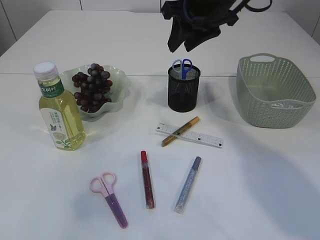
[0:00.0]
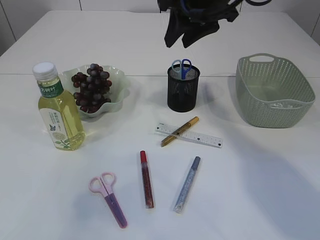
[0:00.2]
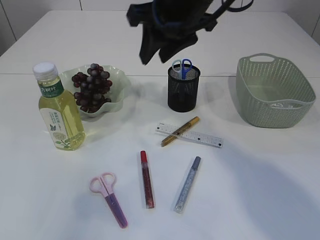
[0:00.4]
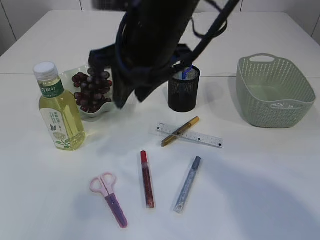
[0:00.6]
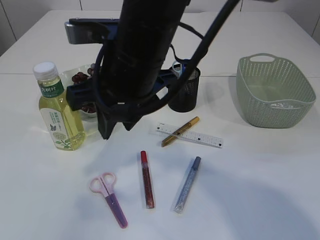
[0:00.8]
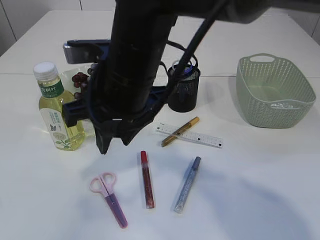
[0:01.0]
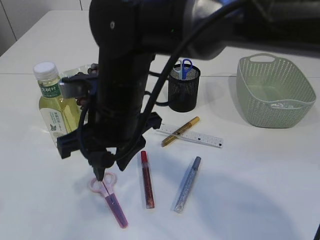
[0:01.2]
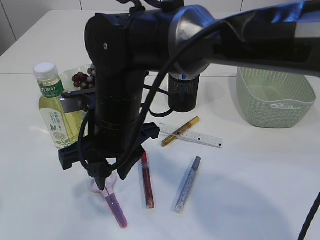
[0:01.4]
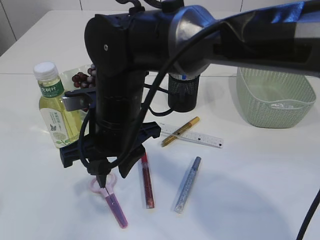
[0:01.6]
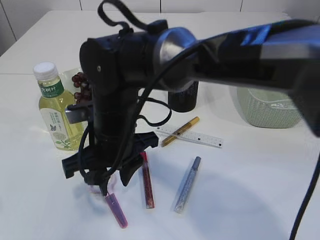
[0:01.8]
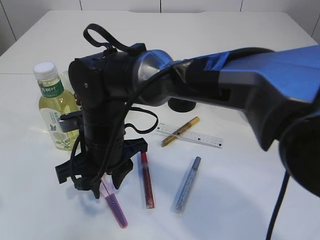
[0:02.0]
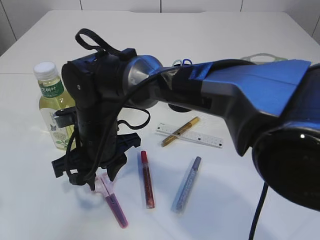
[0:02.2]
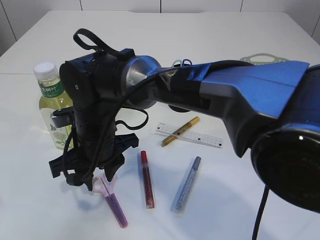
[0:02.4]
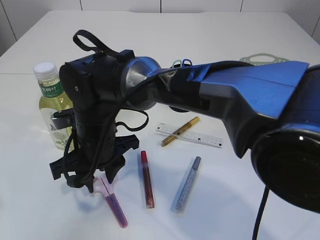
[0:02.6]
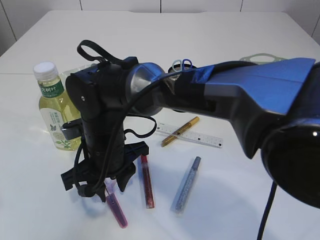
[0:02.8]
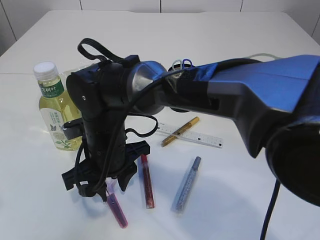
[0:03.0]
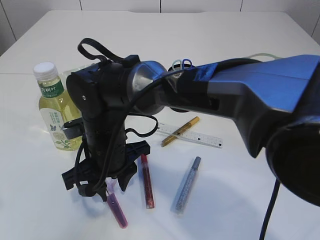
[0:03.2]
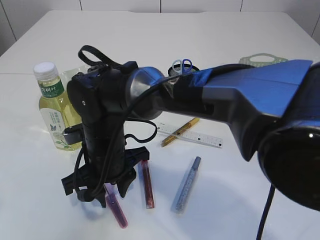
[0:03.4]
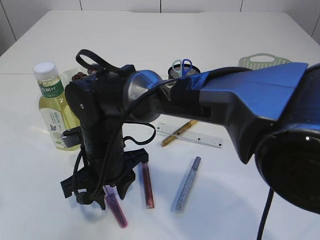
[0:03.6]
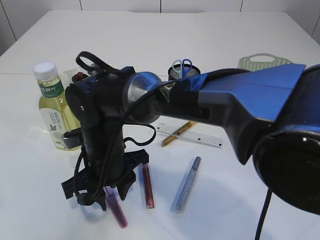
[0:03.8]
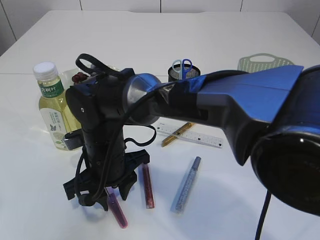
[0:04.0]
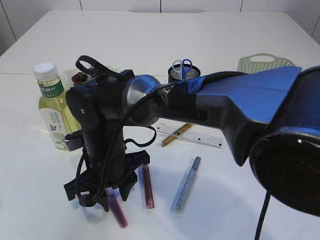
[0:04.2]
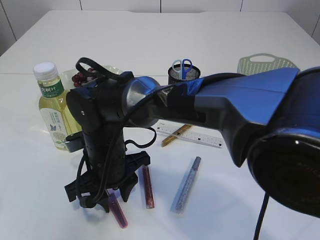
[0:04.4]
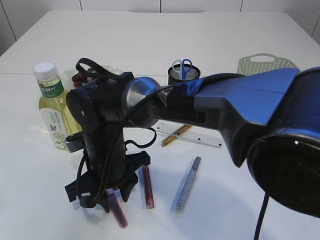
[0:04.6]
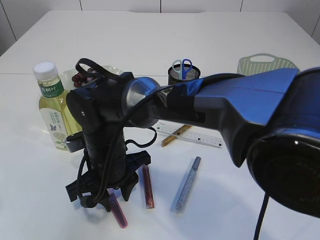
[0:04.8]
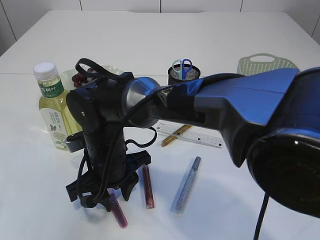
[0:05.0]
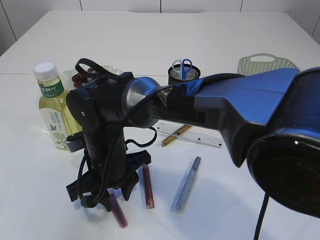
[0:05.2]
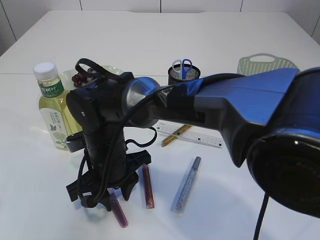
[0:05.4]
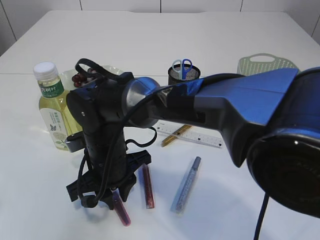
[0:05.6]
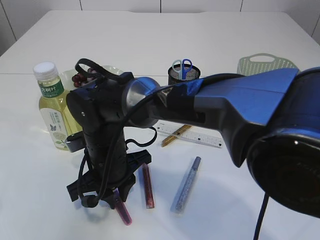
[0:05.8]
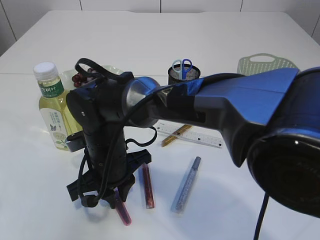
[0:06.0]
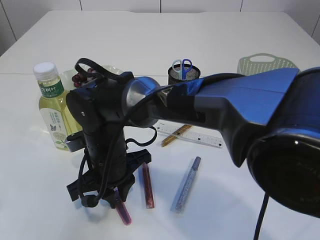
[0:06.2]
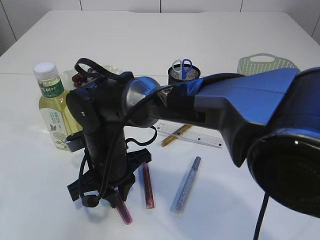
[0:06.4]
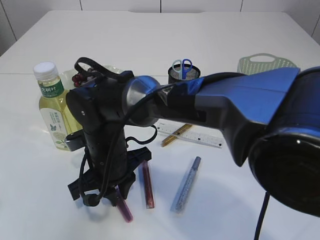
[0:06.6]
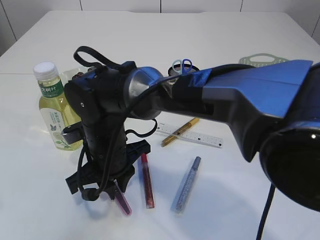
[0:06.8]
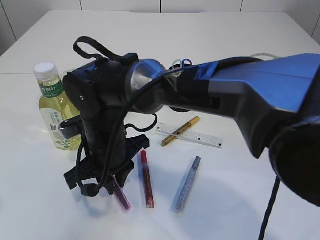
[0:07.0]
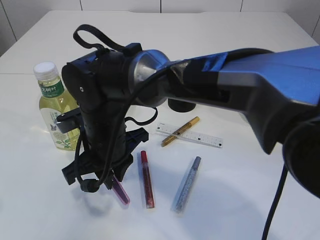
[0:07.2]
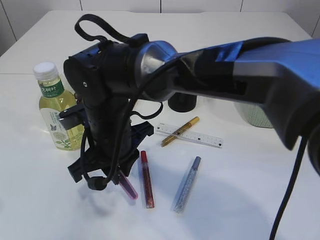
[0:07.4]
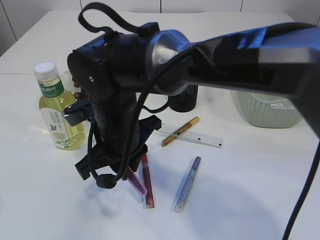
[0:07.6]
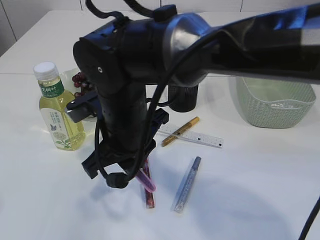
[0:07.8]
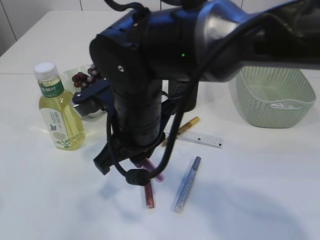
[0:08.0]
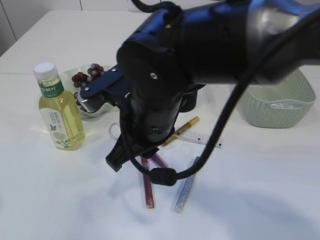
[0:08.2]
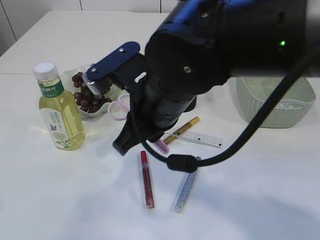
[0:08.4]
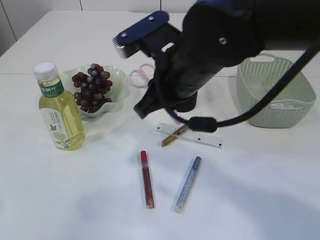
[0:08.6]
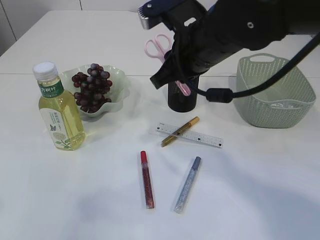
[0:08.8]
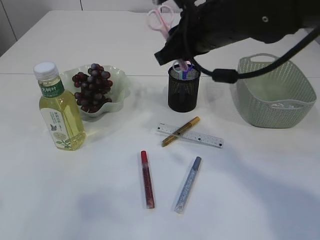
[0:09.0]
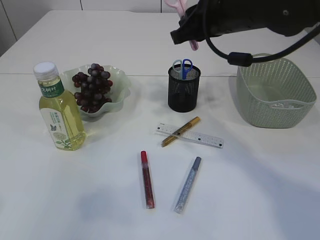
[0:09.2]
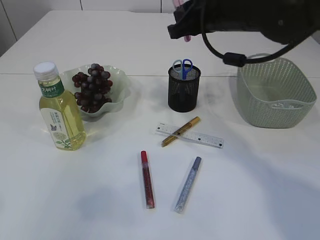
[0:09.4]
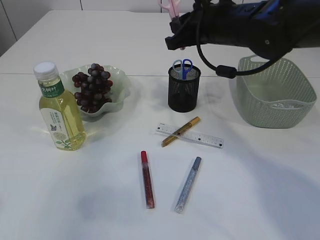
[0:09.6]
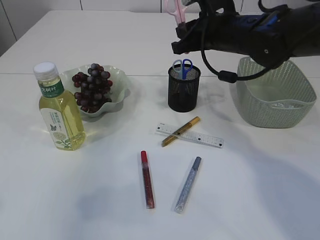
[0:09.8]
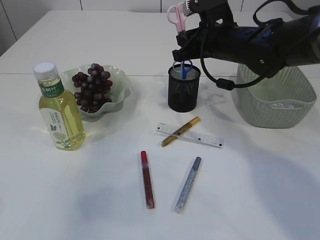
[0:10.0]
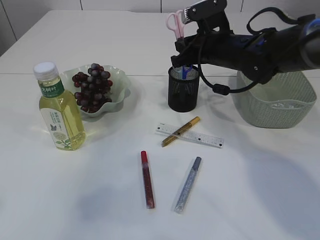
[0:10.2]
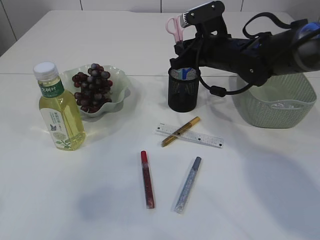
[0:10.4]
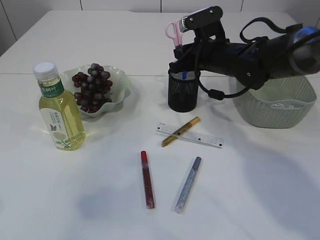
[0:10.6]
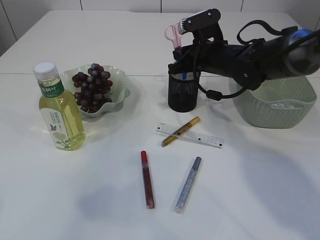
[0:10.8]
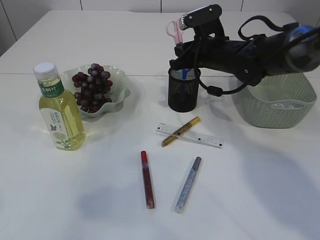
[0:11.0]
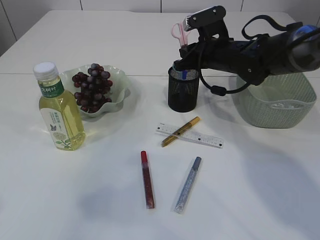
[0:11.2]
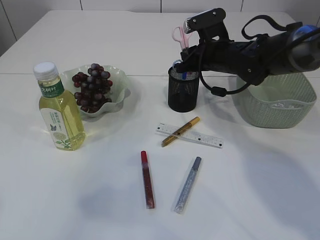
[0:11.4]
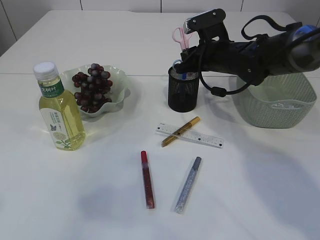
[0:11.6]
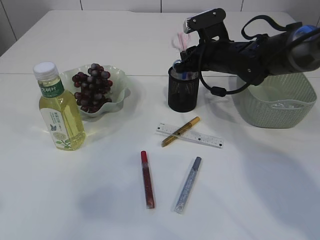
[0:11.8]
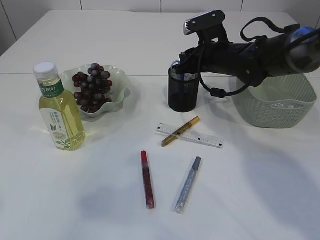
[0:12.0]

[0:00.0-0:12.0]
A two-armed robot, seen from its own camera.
Step, 0:00.0 to 0:07.2: pick up the pink scissors.
0:00.0 to 0:01.6: The right gripper shifts some 25 cm to the left, backward and downward.
0:01.6 to 0:03.0: The right gripper goes approximately 5 cm downward.
0:04.4 to 0:06.0: The two grippers keep their place.
0:06.0 to 0:07.6: The right gripper goes about 5 cm upward.
0:07.6 to 0:09.0: The right gripper moves to the right, upward and forward, roughly 20 cm.
0:09.0 to 0:10.4: The right gripper travels forward and downward by approximately 15 cm.
0:10.4 to 0:12.0: The grippers stay close to where they were, moving slightly.

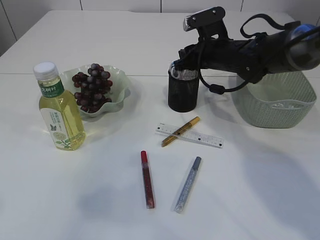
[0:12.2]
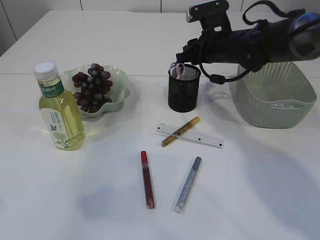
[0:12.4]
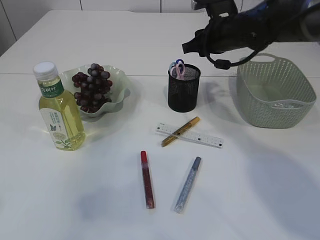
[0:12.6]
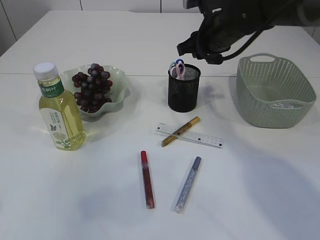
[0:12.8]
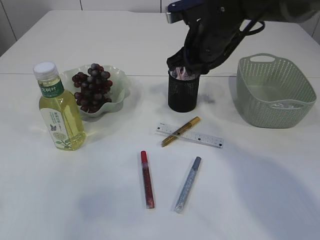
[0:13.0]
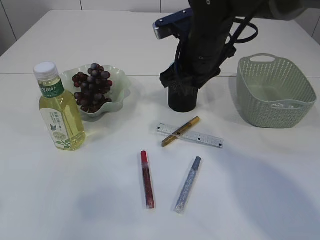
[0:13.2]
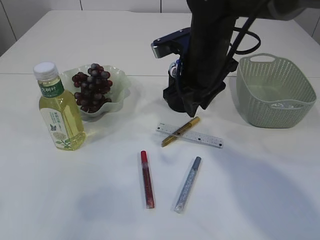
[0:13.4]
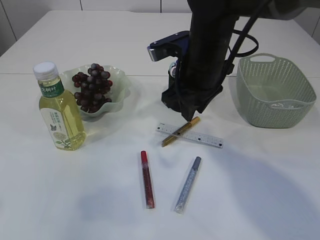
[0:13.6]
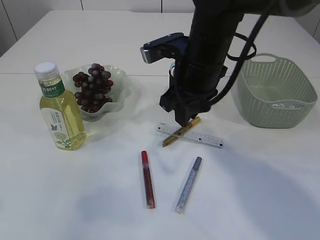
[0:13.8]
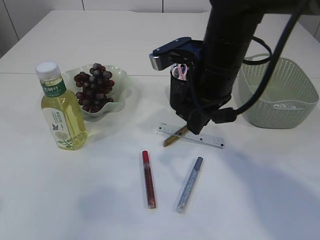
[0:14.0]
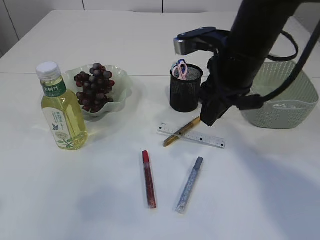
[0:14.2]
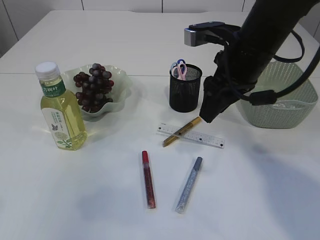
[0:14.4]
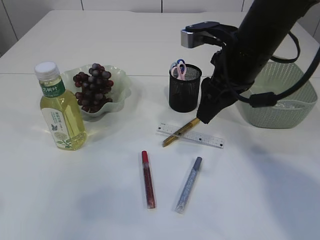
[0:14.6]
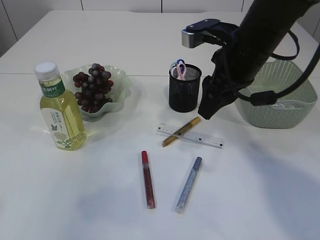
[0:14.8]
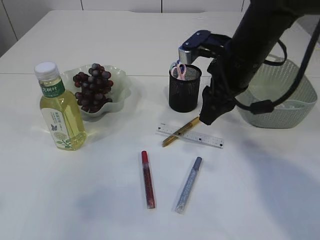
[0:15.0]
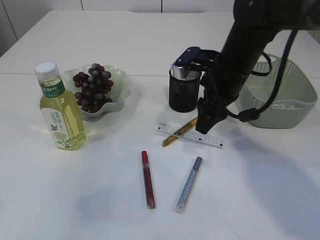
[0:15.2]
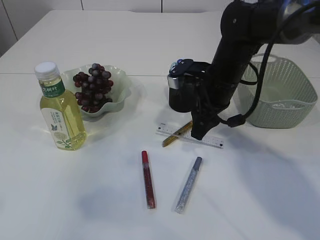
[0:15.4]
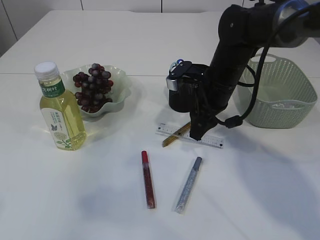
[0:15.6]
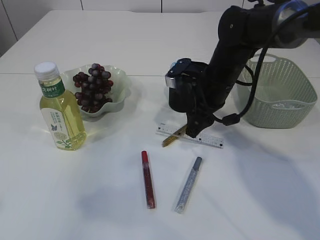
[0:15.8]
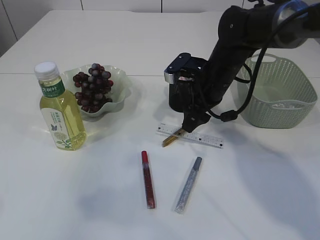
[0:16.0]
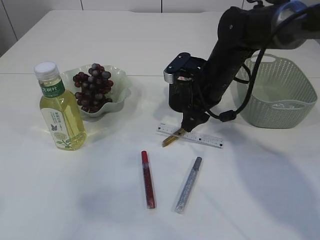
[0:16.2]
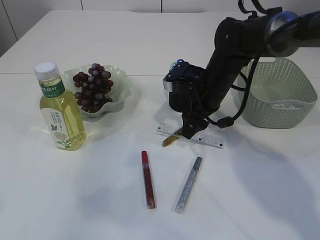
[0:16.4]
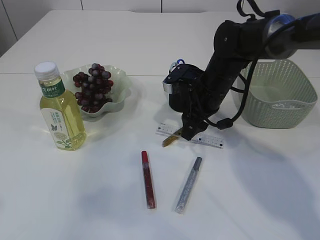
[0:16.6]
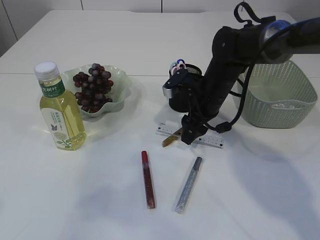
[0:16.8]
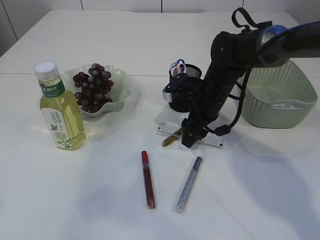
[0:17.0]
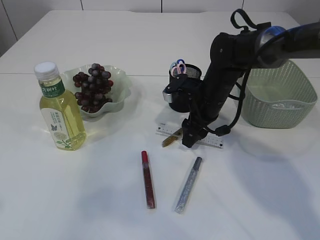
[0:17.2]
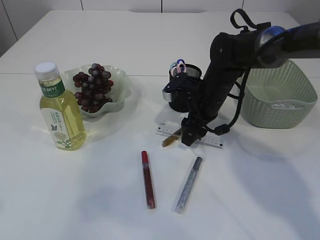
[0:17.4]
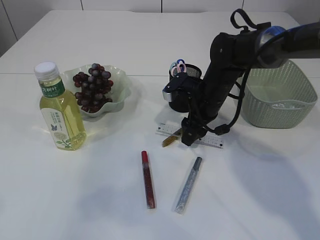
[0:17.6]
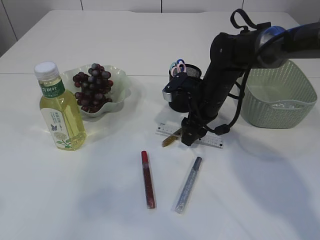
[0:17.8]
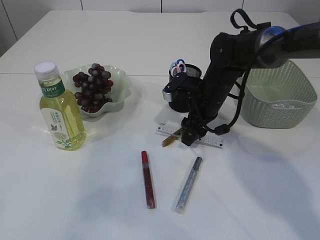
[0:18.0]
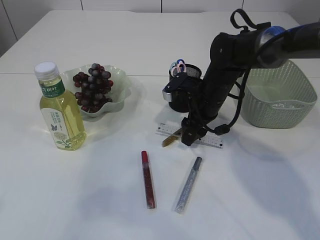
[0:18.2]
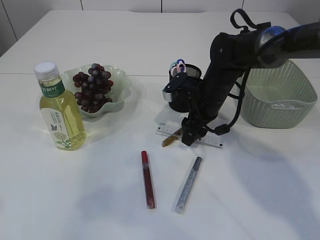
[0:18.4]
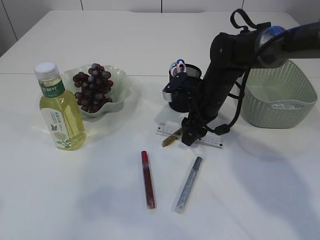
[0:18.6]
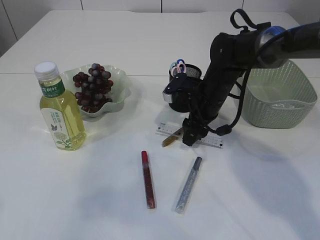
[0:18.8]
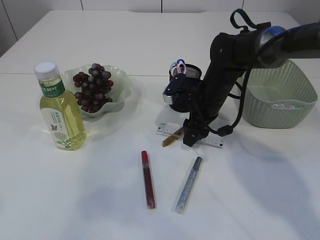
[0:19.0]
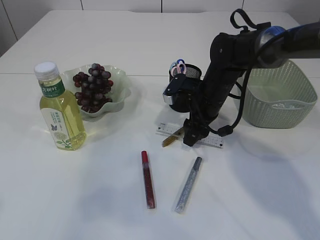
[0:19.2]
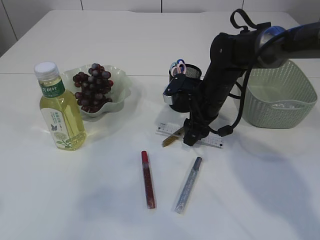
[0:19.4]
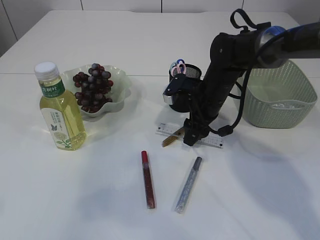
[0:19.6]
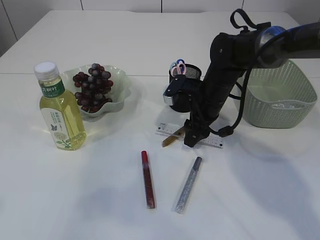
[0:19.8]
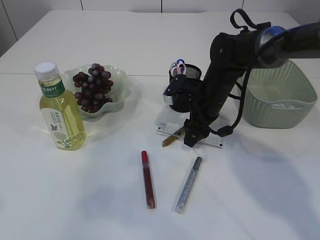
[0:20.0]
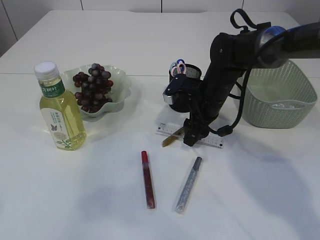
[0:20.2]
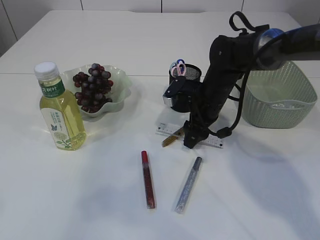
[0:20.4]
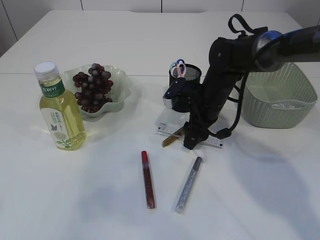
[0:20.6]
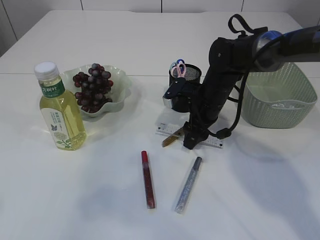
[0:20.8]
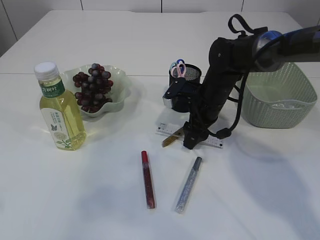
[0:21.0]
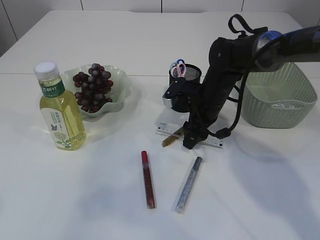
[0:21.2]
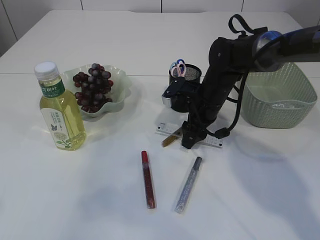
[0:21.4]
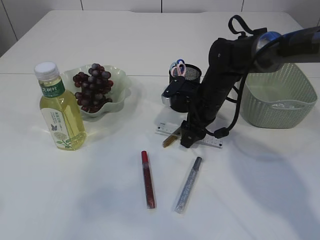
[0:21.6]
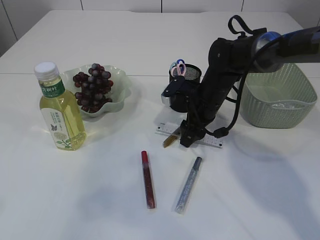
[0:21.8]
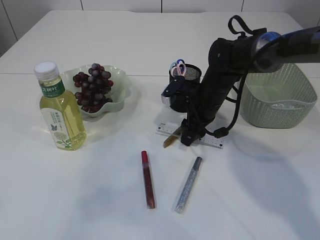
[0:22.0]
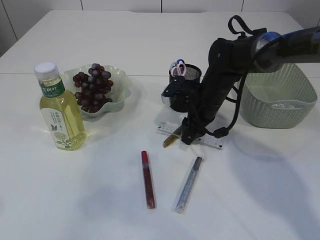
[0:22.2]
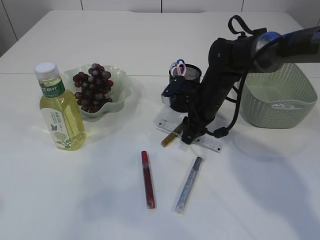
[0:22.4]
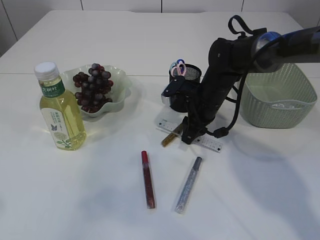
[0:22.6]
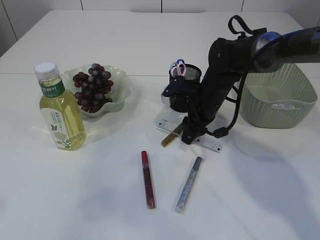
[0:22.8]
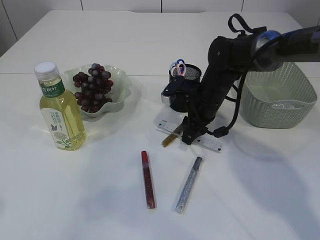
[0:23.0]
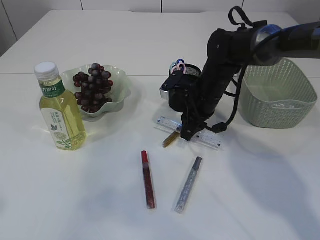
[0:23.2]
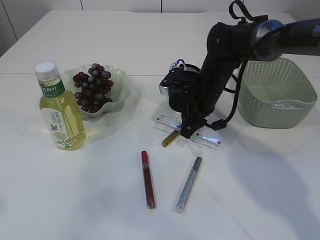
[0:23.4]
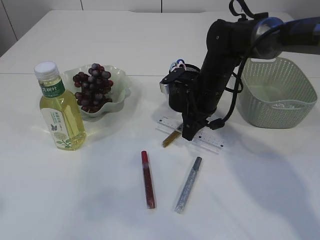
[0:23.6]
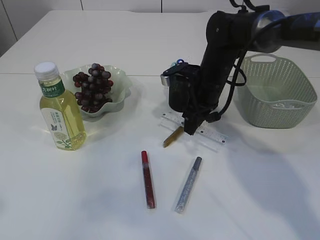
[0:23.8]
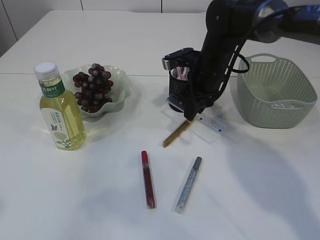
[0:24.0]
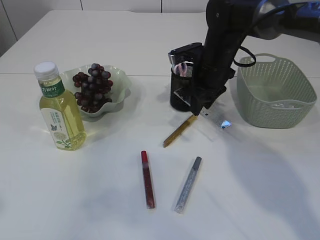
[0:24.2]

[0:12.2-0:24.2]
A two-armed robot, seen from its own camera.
Step, 0:13.0 to 0:24.0: pick up the ruler.
0:12.2 to 0:13.8: The right gripper travels backward, to the left and upward by approximately 15 cm.
0:13.8 to 0:15.2: The right gripper is displaced to the right by roughly 5 cm.
0:15.2 to 0:16.6: The right gripper moves downward, about 5 cm.
0:16.6 to 0:19.8: The grippers make only small movements.
0:19.8 to 0:21.2: Both grippers stay put.
0:21.2 to 0:22.6: The right gripper closes.
0:22.6 to 0:24.2: The right gripper is displaced upward by roughly 5 cm.
